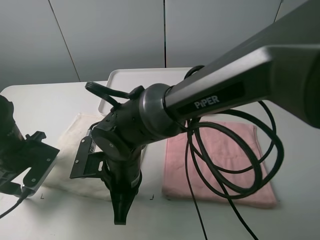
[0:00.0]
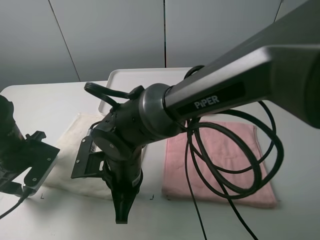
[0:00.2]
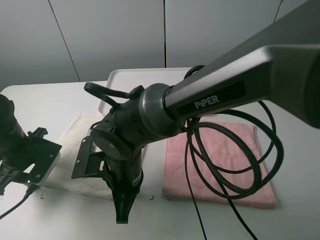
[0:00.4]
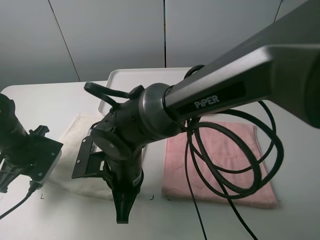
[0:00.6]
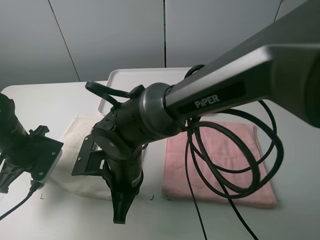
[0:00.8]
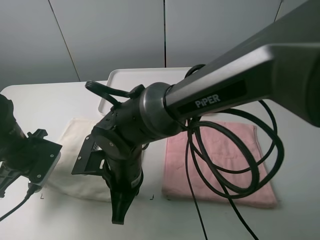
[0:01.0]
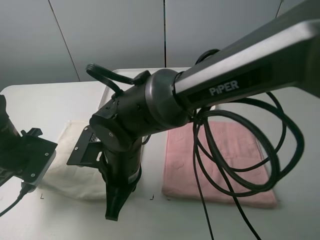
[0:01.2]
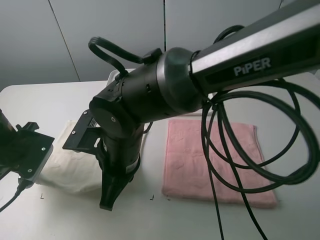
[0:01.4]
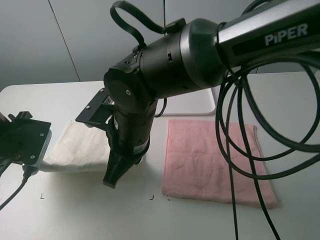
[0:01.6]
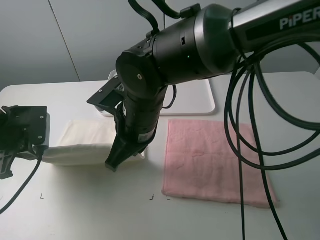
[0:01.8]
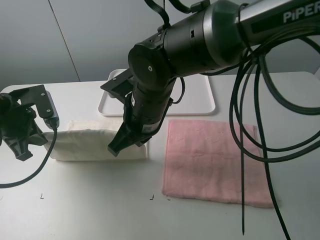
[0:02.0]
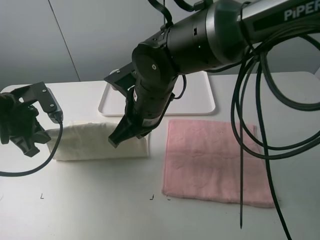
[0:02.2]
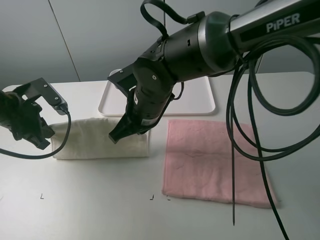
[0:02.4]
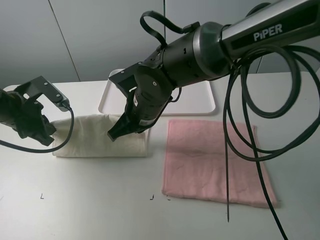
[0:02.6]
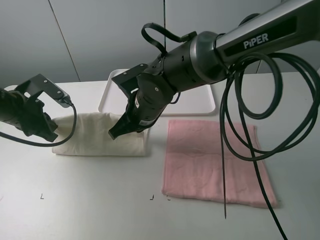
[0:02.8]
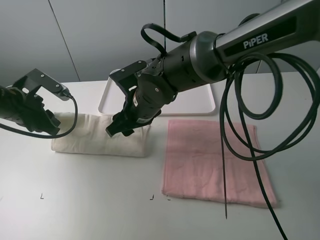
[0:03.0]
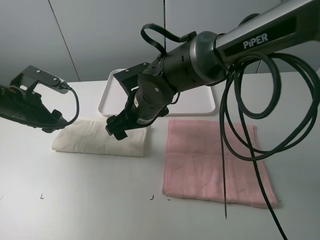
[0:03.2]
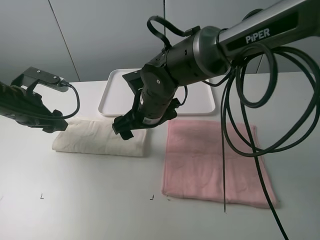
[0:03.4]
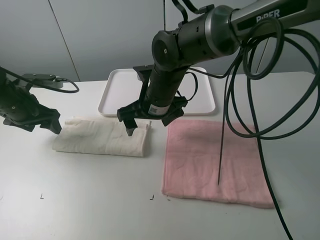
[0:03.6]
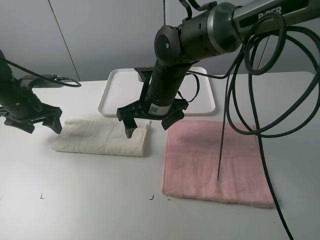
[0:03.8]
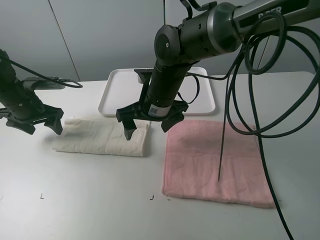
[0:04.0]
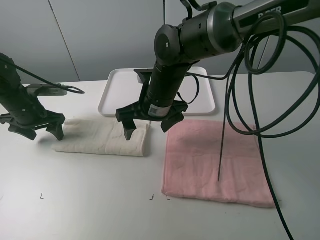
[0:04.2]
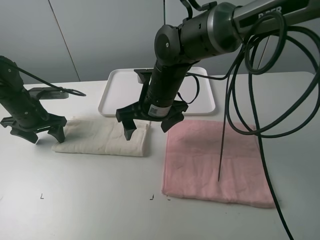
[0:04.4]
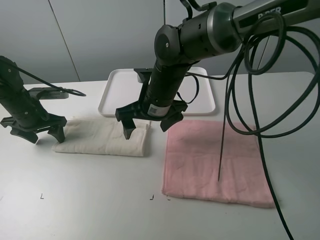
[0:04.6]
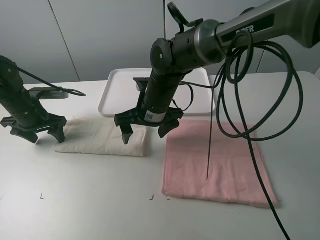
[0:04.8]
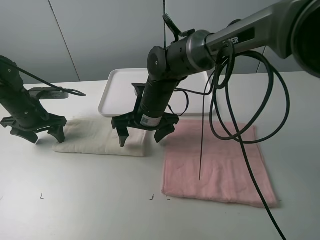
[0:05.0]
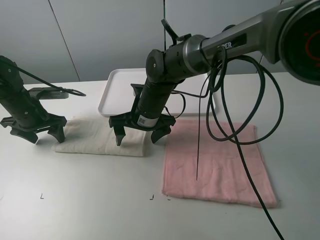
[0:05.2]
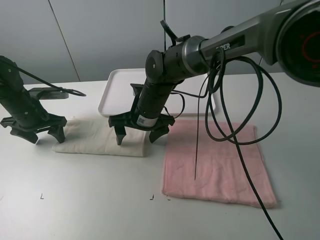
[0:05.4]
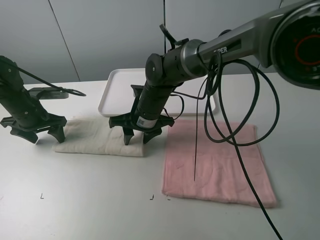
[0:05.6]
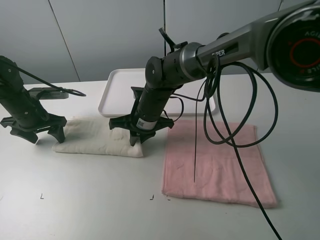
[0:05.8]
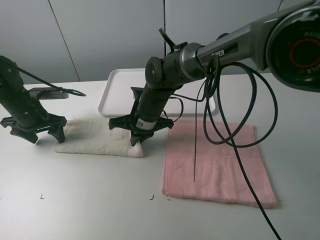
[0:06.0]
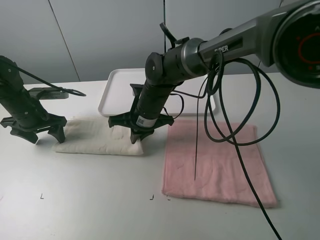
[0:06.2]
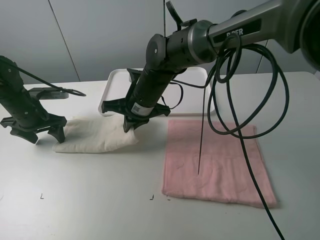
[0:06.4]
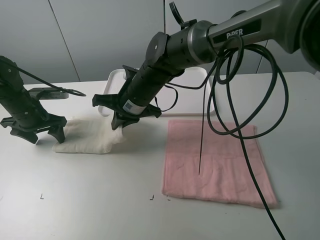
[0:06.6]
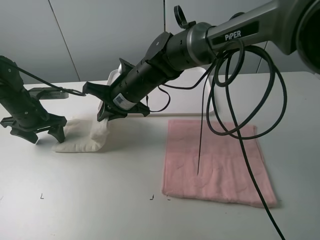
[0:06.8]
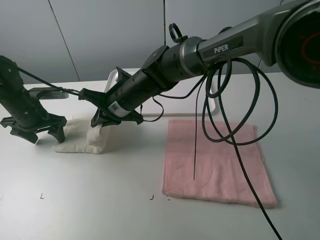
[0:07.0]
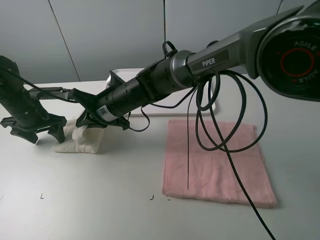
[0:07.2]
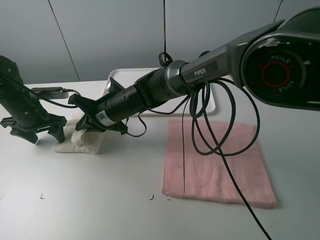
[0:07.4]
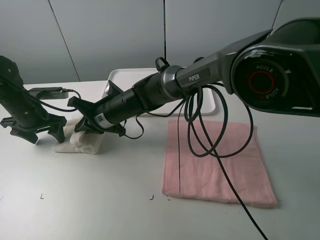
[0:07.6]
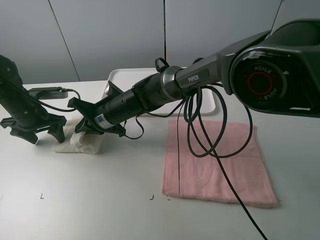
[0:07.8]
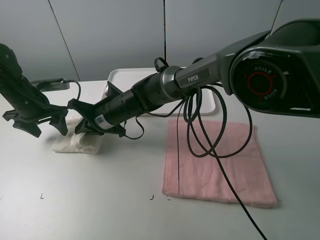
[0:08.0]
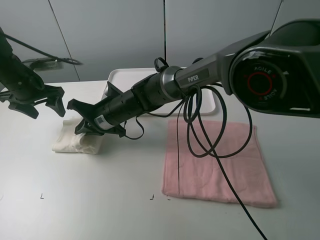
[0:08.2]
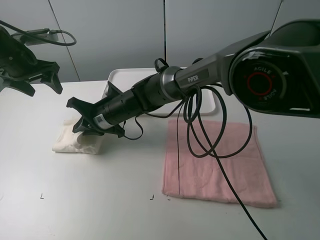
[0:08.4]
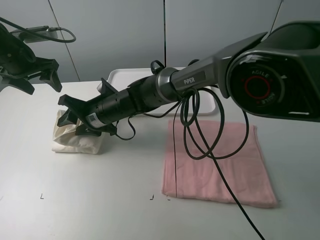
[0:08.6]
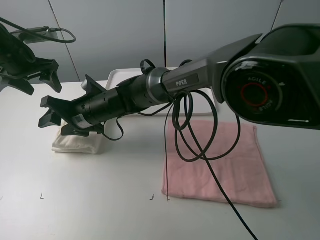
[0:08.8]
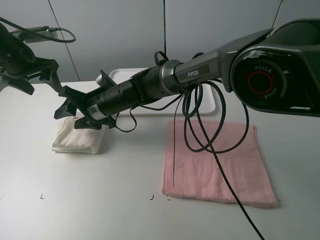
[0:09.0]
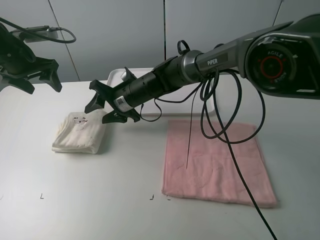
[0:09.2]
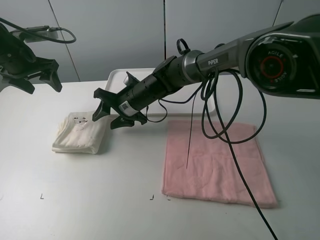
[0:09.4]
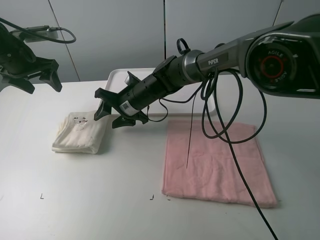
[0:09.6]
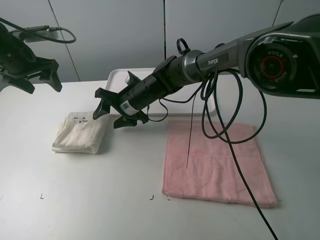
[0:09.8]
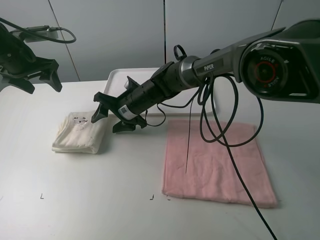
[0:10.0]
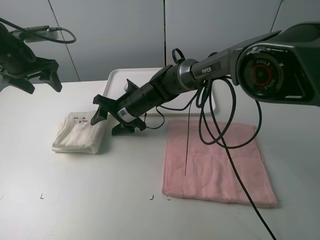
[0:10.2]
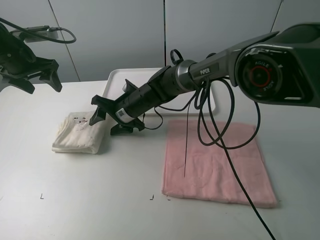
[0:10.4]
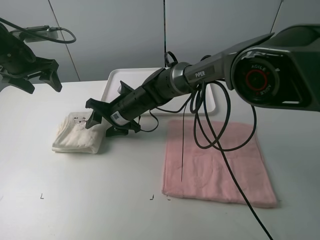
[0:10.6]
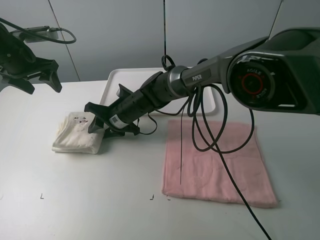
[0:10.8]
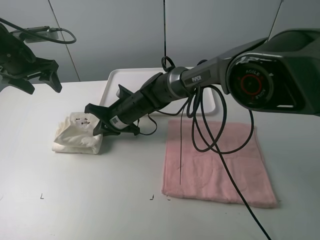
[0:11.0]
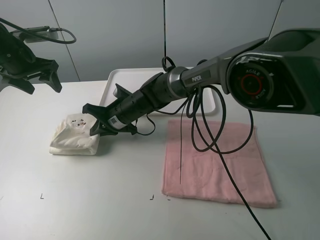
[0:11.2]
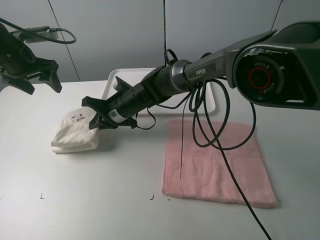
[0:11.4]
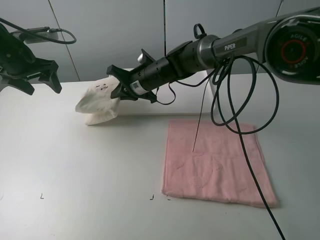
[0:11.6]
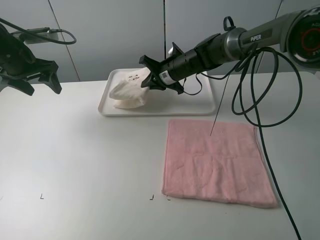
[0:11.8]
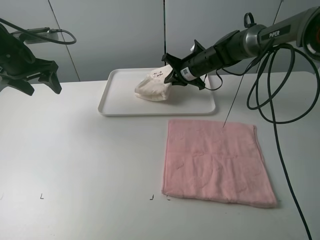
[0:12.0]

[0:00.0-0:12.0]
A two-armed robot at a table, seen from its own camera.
Task of the whole recording: fold one of the towels by two grippers and place it on the tray,then fold another towel by two grippers and place it on the folded towel.
Step, 0:00.2 to 0:03.2: Fold the white towel upwards with the left gripper.
Step, 0:03.4 to 0:04.8: Press the white towel with the left gripper.
Step, 0:05.0 to 0:06.0: Grasp the white towel with the right gripper.
Step, 0:06.2 to 0:08.8: Fold the white towel from right to left with right gripper.
Step, 0:09.0 to 0:11.0: Grasp the white towel with the right gripper.
0:00.0 to 0:01.6: Both grippers travel together upward, about 5 cm. The left gripper closes.
0:01.6 to 0:03.0: Both grippers travel together forward, some 5 cm. The left gripper opens its fingers. Meanwhile the right gripper opens.
0:03.0 to 0:04.4: The left gripper is displaced forward by roughly 5 cm.
0:04.4 to 0:06.0: The right gripper goes approximately 5 cm downward, and closes its fingers.
0:06.0 to 0:07.6: The right gripper heads to the left, covering roughly 5 cm.
0:07.6 to 0:09.0: The right gripper opens. The left gripper is displaced upward by approximately 10 cm.
0:09.0 to 0:10.4: The right gripper changes place by about 5 cm.
0:10.4 to 0:12.0: The right gripper travels to the right and forward by about 20 cm, and closes its fingers.

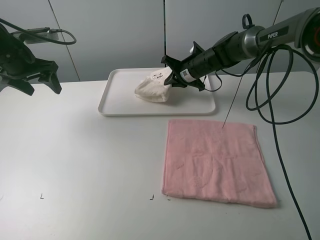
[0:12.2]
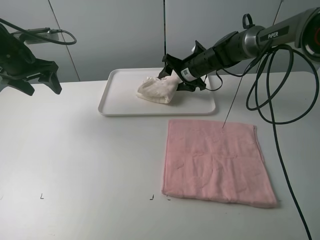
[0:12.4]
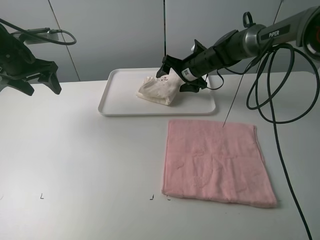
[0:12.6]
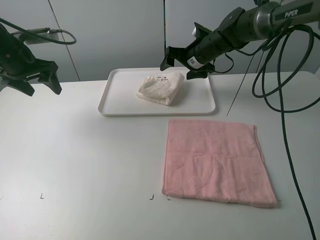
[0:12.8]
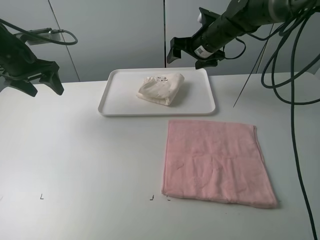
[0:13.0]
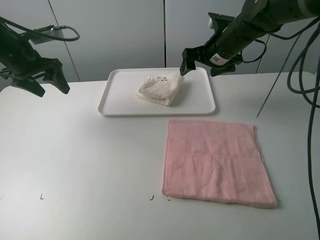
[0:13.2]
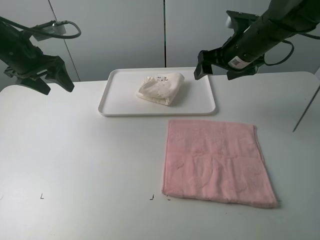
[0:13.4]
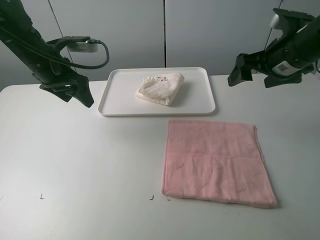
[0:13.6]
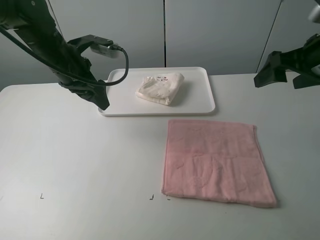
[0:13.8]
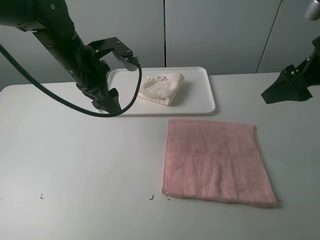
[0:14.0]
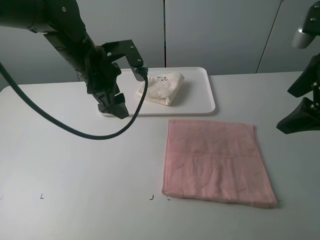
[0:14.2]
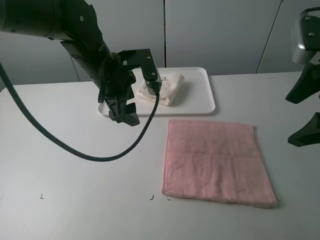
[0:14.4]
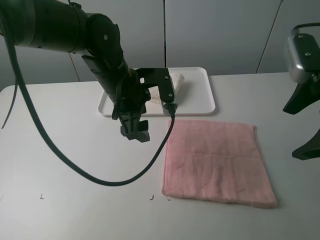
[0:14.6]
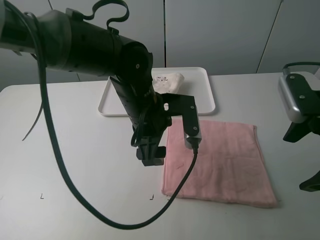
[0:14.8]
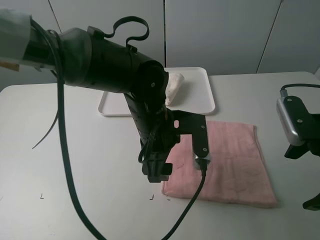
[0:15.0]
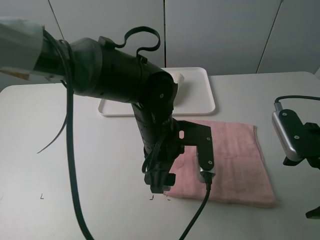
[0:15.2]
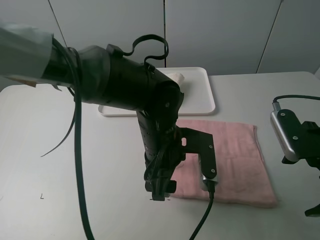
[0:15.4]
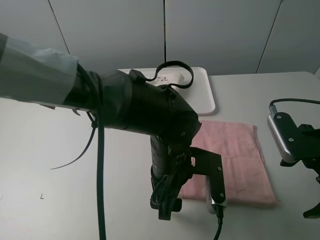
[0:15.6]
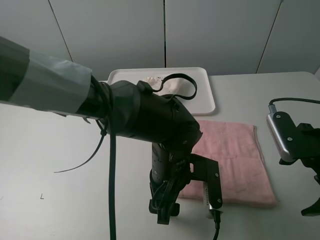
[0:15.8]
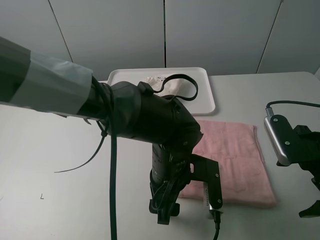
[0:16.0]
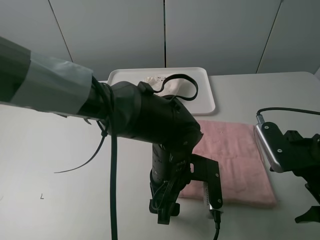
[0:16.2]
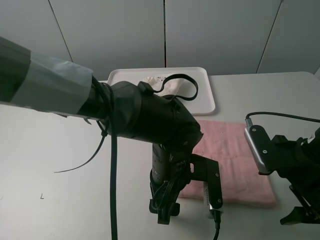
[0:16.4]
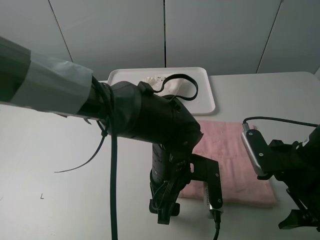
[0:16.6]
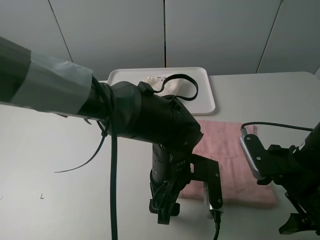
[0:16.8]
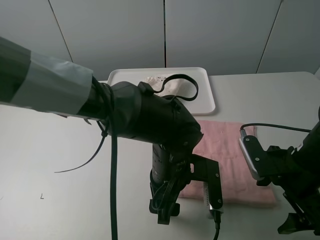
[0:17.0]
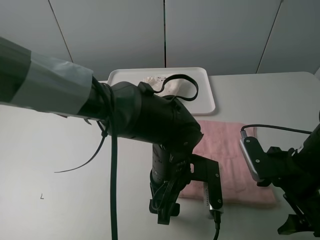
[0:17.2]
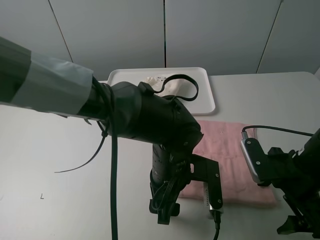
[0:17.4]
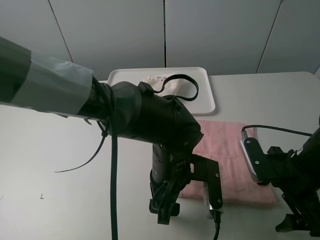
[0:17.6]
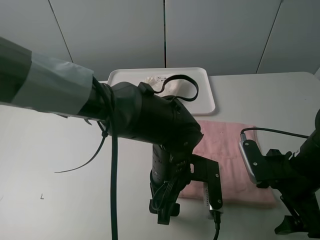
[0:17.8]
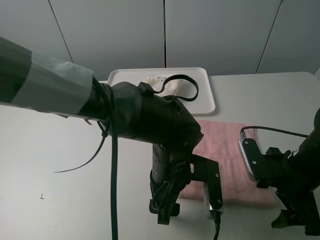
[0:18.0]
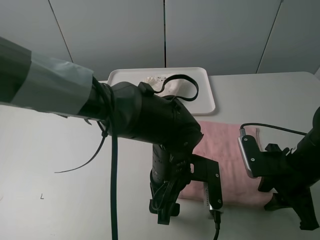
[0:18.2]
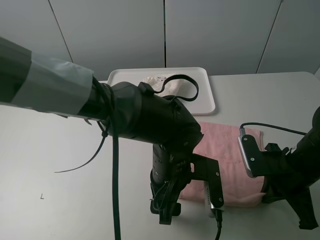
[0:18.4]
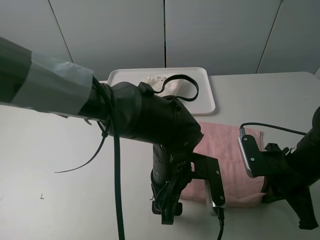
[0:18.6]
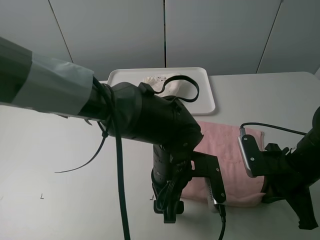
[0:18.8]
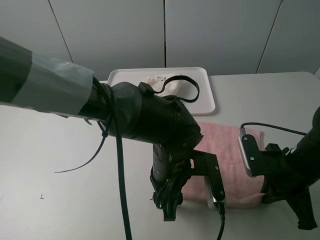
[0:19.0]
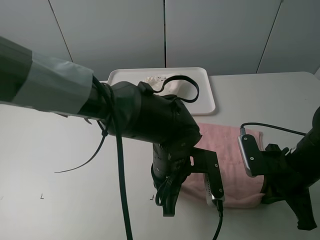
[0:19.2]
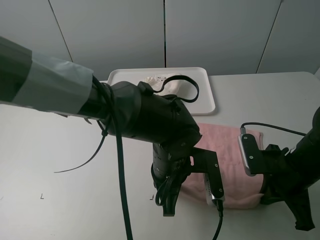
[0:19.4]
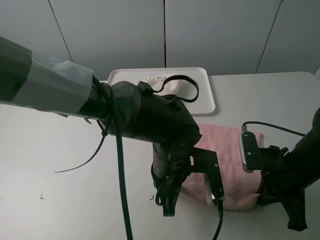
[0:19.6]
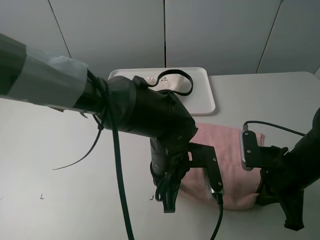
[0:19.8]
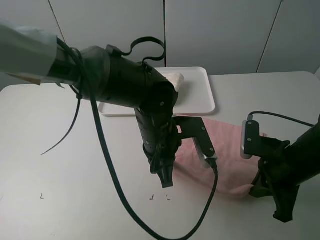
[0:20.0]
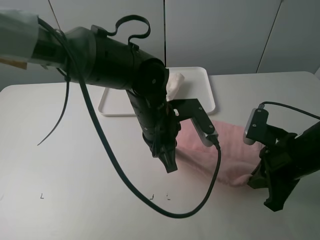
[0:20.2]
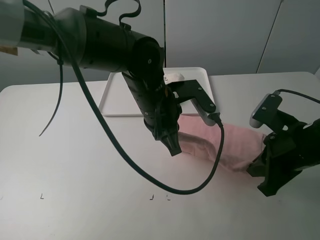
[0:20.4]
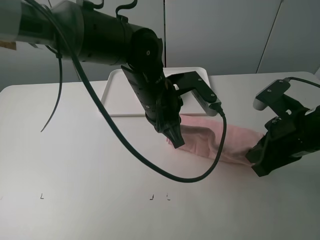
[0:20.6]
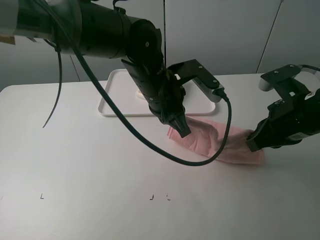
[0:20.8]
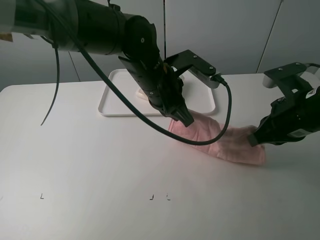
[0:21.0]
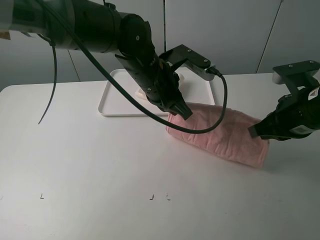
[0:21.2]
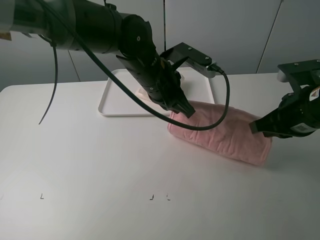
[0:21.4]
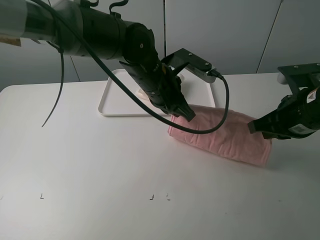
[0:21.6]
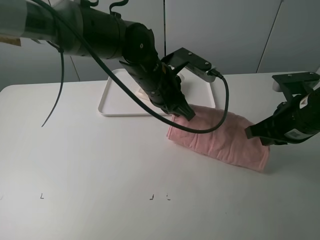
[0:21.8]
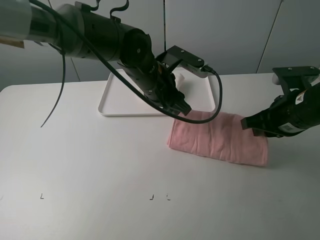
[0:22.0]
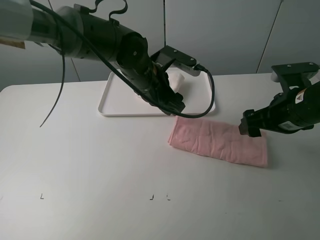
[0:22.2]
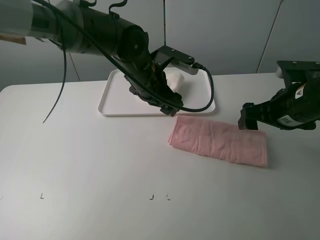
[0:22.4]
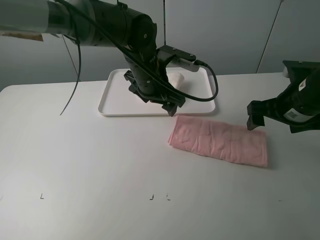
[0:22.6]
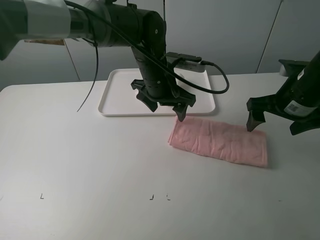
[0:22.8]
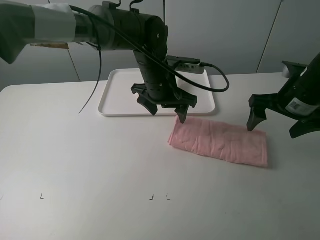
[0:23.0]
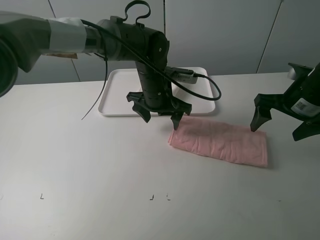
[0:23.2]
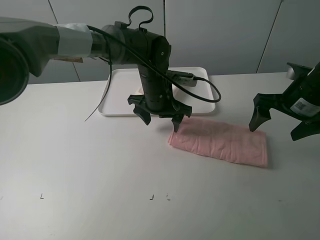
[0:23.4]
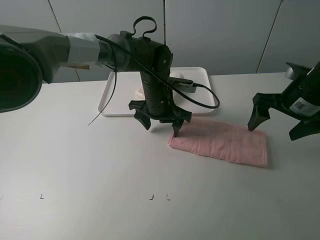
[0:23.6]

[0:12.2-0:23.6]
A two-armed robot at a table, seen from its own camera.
Task of the whole recording: fold one of the towels by two grippers and place it on the tray,then fold another towel by two grippers and place it on the folded towel.
Step, 0:12.8 to 0:19.0: Grasp the pink towel with the left gripper.
Step, 0:19.2 to 0:22.2: Fold the pink towel upwards with the left gripper.
0:12.2 to 0:13.6: The left gripper is displaced to the right by about 10 cm, while the right gripper moves backward, to the right and upward, approximately 25 cm, and opens up.
0:13.6 to 0:15.0: The left gripper shifts about 25 cm to the right and backward, while the right gripper heads backward and downward, covering some 15 cm.
0:15.0 to 0:16.4: The left gripper moves approximately 5 cm, while the right gripper moves approximately 5 cm.
0:16.4 to 0:17.8: The grippers stay close to where they were, moving slightly.
0:17.8 to 0:19.4: The left gripper closes its fingers; the right gripper closes its fingers.
0:19.4 to 0:20.8: The left gripper shifts some 15 cm forward and upward, while the right gripper heads upward, covering some 10 cm.
0:20.8 to 0:22.2: The right gripper opens its fingers, while the left gripper shifts by some 5 cm, and opens.
0:22.2 to 0:23.6: The right gripper shifts by roughly 5 cm, while the left gripper heads downward, covering roughly 5 cm.
